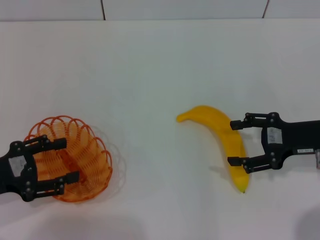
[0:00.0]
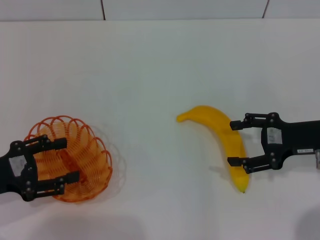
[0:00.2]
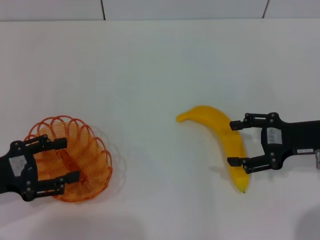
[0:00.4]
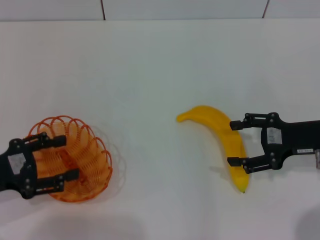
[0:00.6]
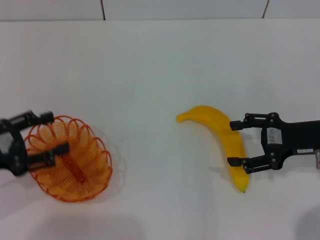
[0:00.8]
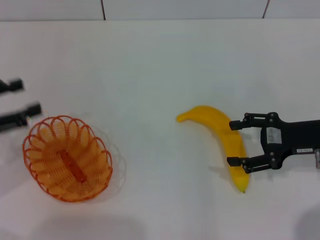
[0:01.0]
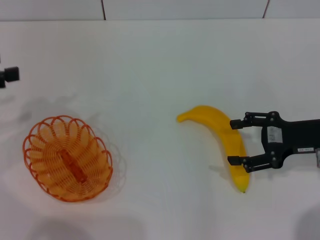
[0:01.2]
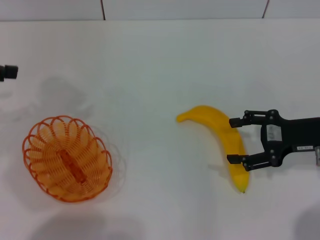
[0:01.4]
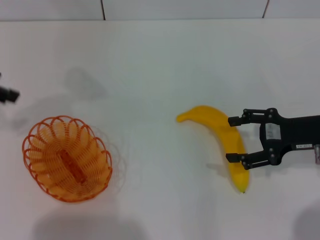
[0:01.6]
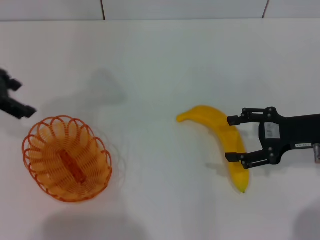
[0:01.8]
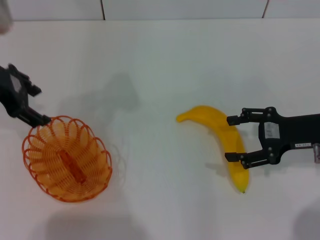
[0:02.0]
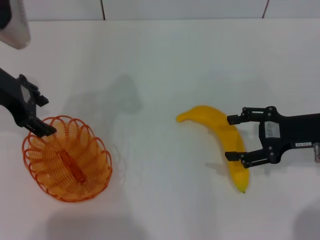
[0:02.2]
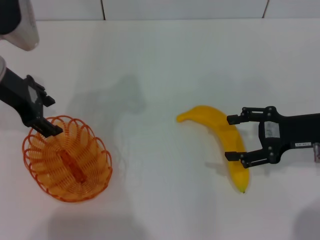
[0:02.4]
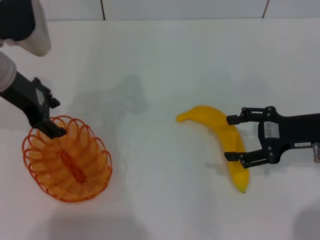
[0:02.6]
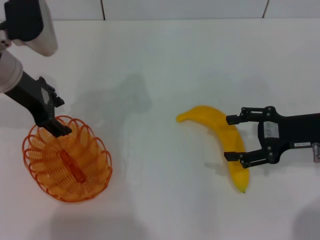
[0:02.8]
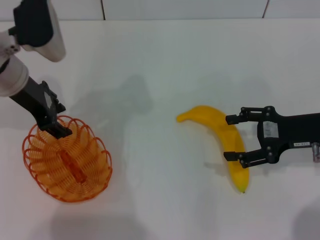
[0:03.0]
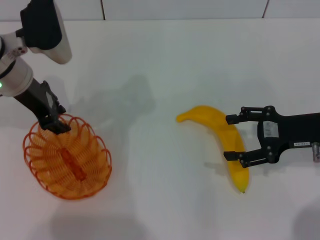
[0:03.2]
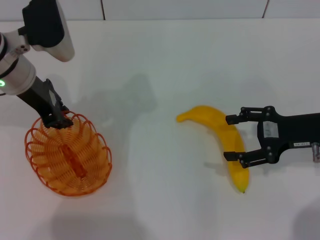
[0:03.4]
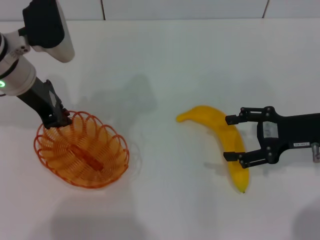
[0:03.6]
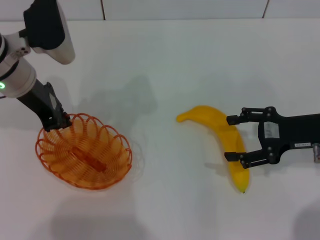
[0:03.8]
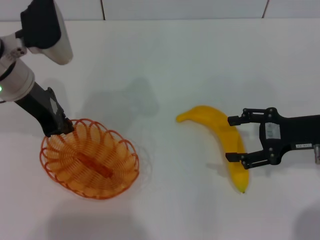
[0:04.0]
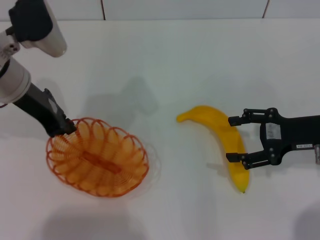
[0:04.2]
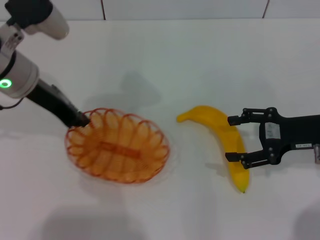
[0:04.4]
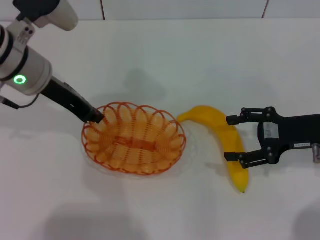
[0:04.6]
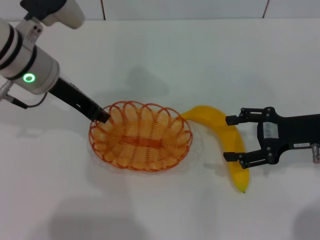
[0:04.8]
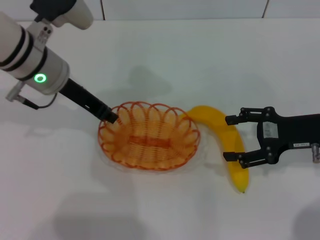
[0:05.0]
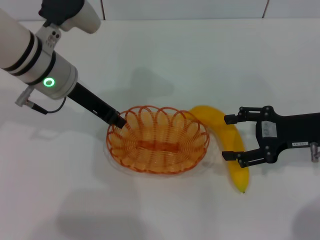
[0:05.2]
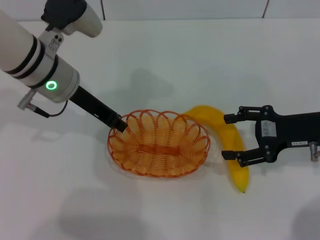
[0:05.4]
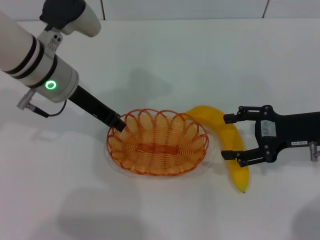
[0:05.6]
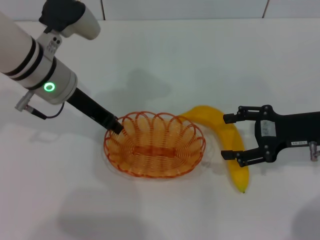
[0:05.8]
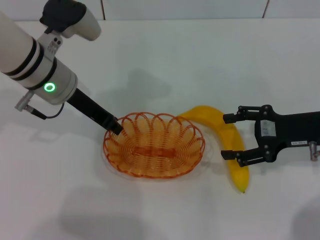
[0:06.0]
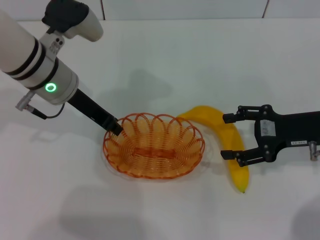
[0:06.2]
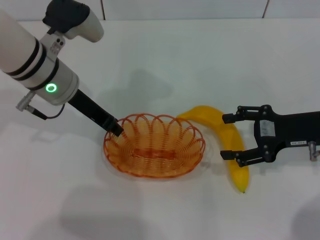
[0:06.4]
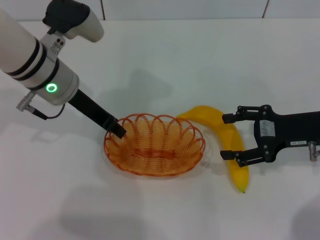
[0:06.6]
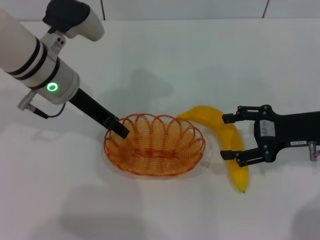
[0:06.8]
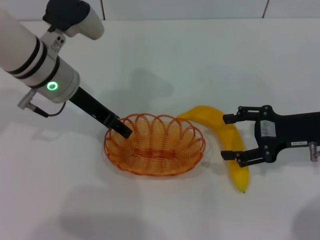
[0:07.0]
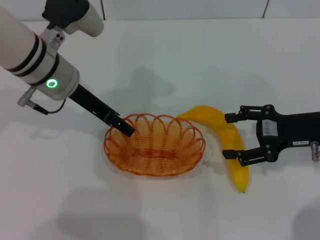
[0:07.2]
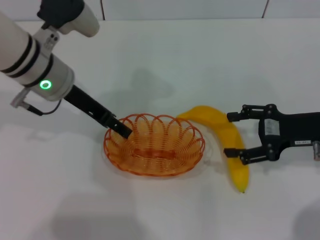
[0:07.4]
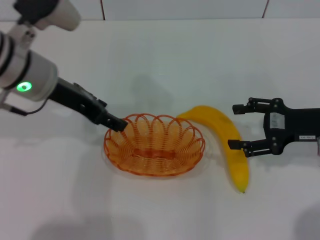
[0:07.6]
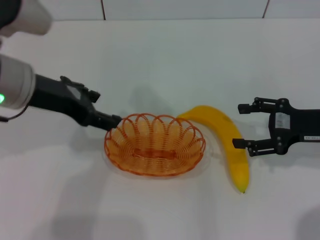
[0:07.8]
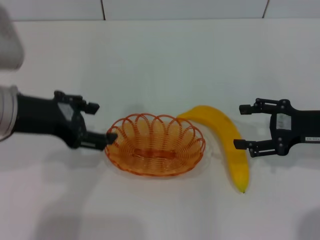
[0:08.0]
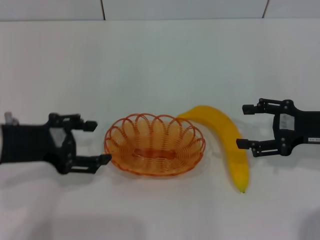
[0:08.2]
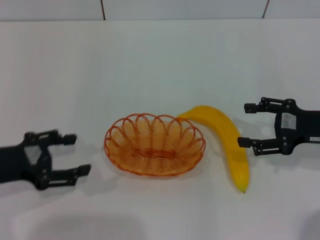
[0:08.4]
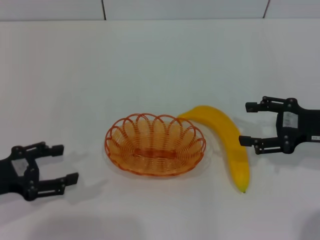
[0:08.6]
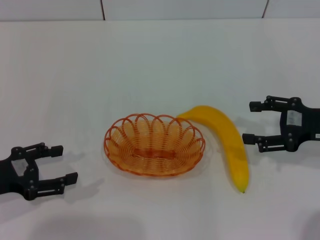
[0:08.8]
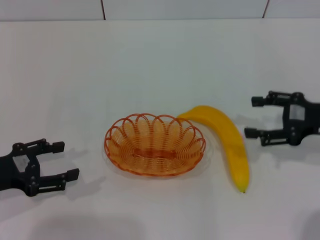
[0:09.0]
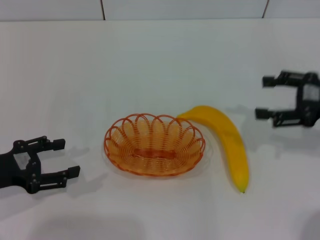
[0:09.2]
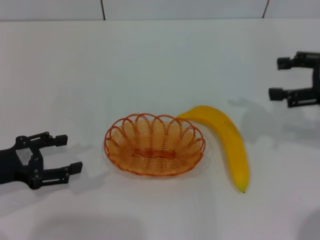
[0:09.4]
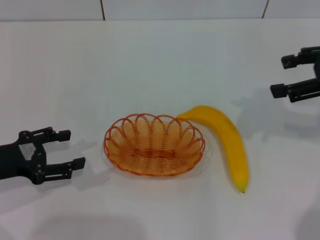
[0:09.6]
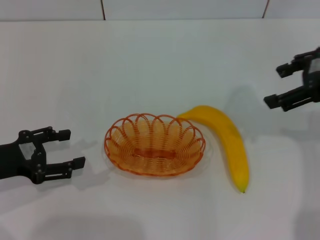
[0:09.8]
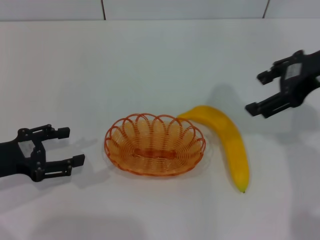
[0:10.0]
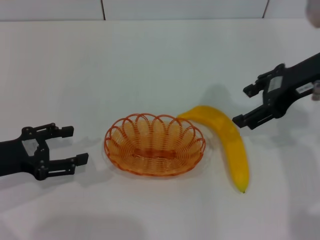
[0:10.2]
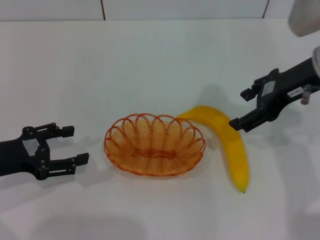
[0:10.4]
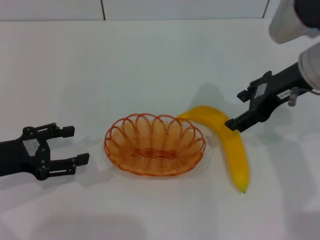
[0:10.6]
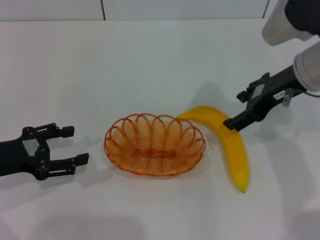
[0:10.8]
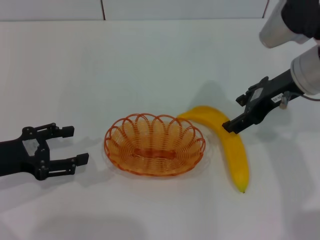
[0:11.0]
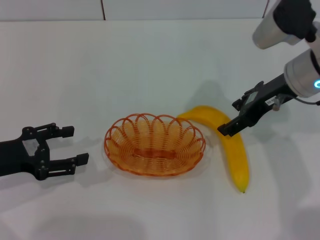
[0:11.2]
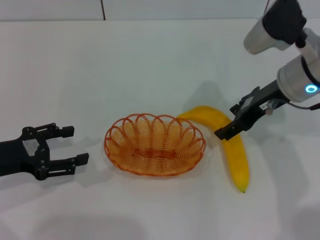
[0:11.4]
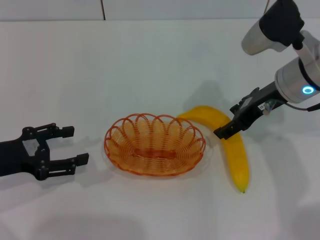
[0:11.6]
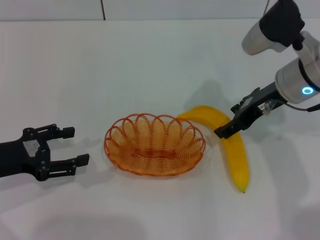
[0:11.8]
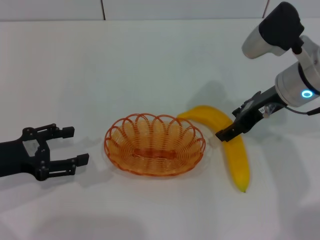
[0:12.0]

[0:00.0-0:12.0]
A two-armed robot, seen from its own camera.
Step, 0:00.0 to 0:04.2: Pick up the basket with the left gripper.
Step, 0:04.4 to 0:11.4: Place the basket in the center of view with the left gripper.
0:00.0 to 0:01.6: The left gripper heads upward and forward, covering approximately 20 cm.
0:01.6 to 0:03.0: The left gripper moves to the right and downward, roughly 15 cm.
0:03.0 to 0:04.4: The left gripper closes up.
0:06.0 to 0:07.6: The left gripper shifts by about 5 cm, and opens up.
0:07.6 to 0:09.0: The left gripper shifts roughly 20 cm to the left, backward and downward.
0:09.0 to 0:10.4: The right gripper is displaced upward and to the left by approximately 15 cm.
0:10.4 to 0:12.0: The right gripper moves downward, roughly 5 cm.

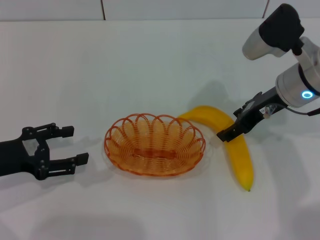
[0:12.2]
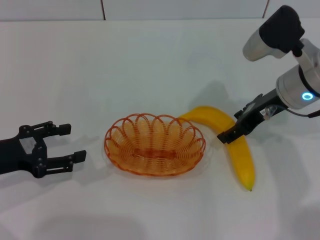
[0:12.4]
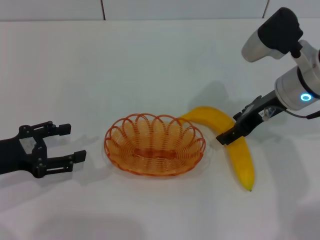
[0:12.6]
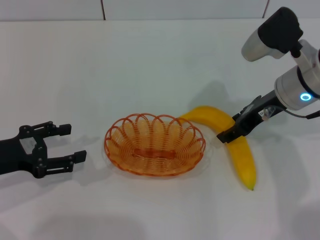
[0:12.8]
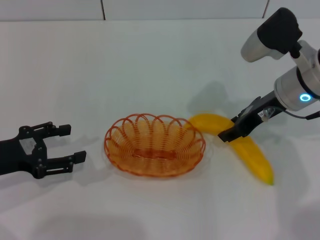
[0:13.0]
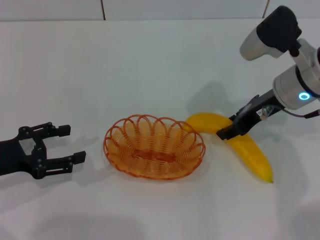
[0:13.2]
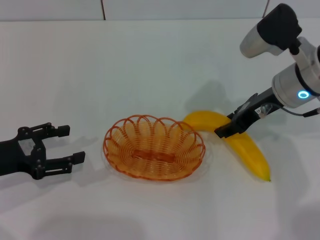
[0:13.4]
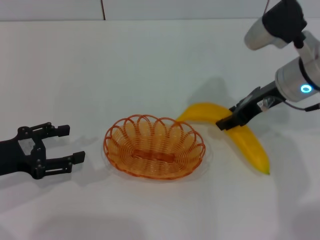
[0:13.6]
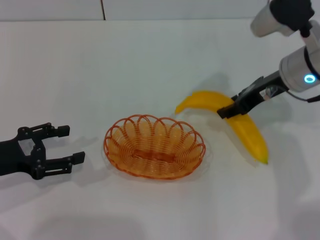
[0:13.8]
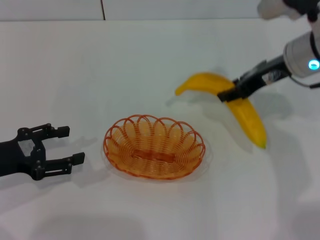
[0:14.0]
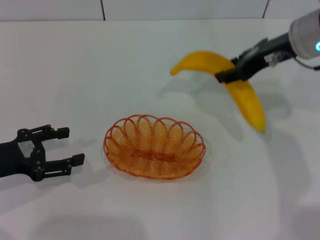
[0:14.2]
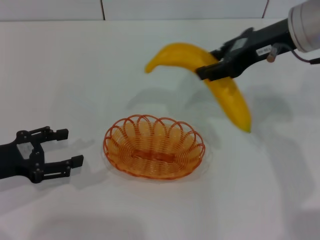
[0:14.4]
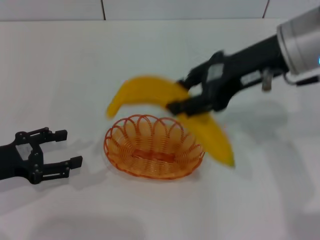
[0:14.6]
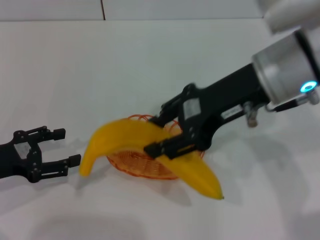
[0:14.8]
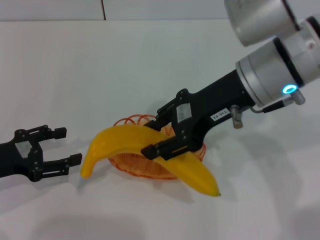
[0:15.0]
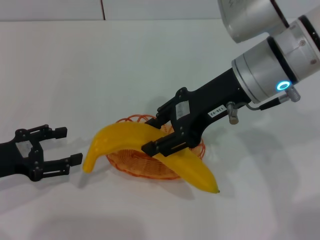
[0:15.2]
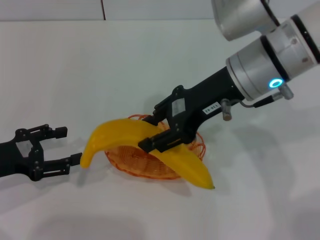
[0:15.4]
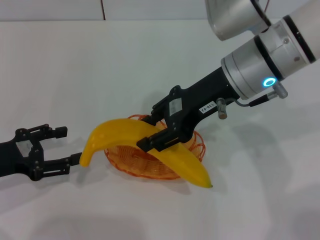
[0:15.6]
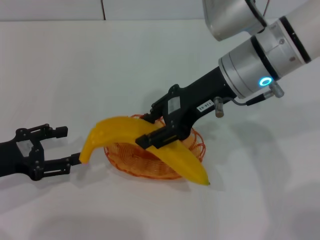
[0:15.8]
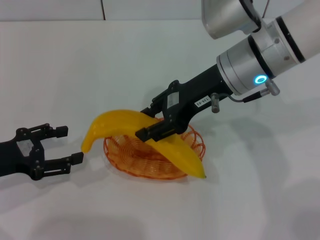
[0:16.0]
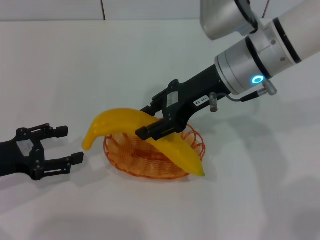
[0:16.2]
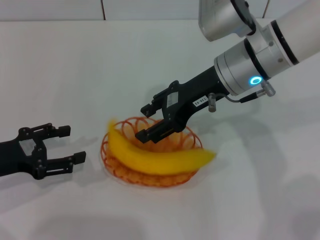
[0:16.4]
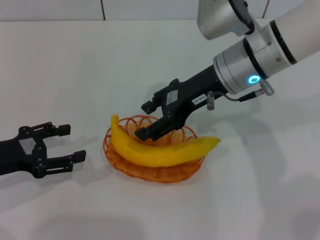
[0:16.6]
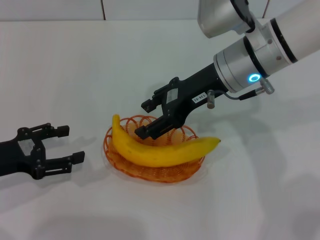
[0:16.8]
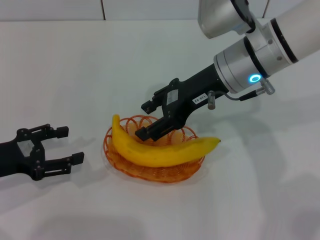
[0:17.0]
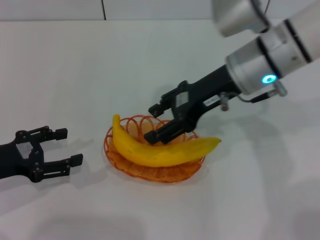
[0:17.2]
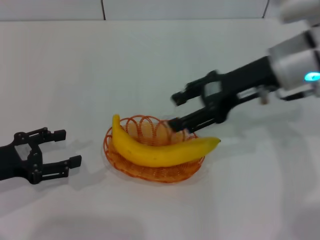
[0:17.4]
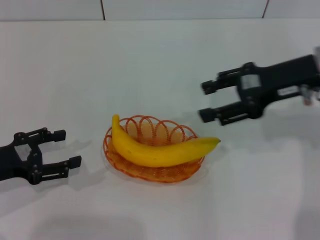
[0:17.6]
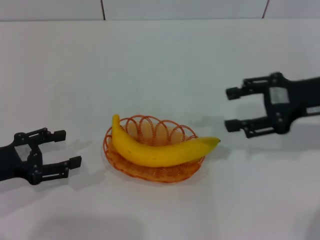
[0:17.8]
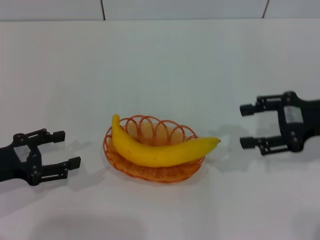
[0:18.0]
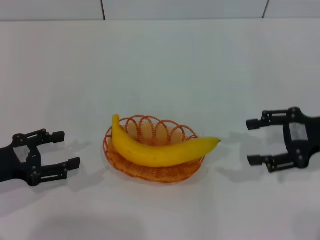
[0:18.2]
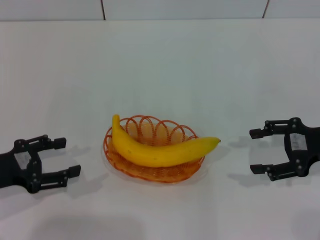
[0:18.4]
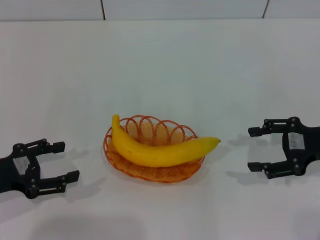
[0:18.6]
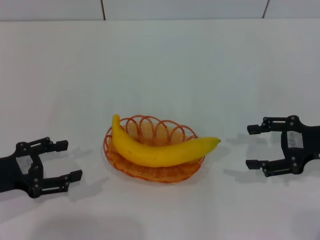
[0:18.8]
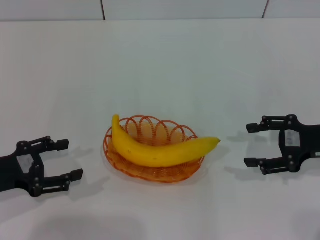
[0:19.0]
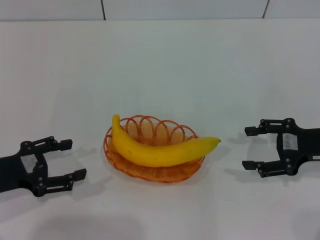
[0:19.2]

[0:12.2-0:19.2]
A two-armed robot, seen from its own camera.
Step, 0:12.2 to 0:14.0: Pick up the banana with the right gripper.
Step, 0:14.4 to 0:16.8: Place the banana into the basket with the right gripper.
0:12.2 to 0:13.6: The right gripper closes.
0:13.6 to 0:15.0: The right gripper goes approximately 10 cm to the left and upward.
0:15.0 to 0:16.4: The right gripper changes place by approximately 5 cm.
0:16.4 to 0:17.8: The right gripper is displaced to the right by some 15 cm, and opens.
0:17.8 to 0:19.2: The right gripper shifts roughly 10 cm downward.

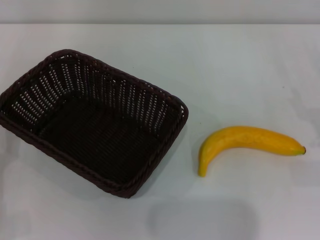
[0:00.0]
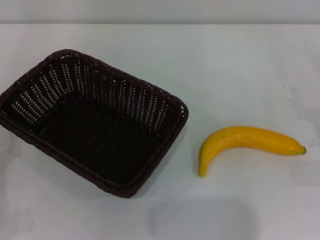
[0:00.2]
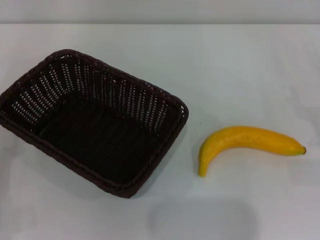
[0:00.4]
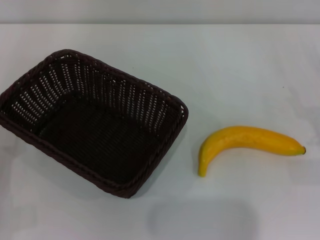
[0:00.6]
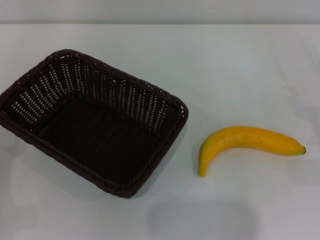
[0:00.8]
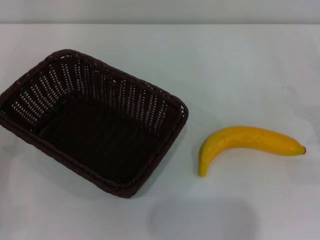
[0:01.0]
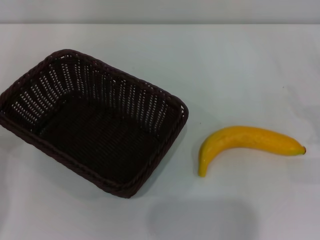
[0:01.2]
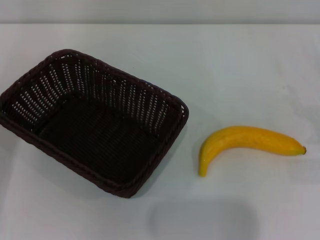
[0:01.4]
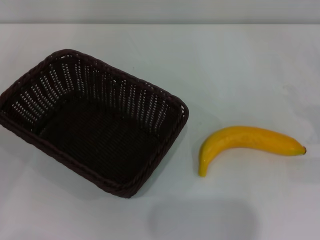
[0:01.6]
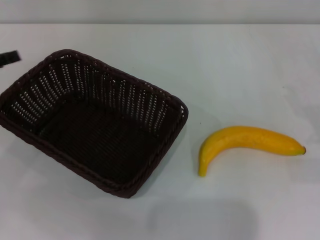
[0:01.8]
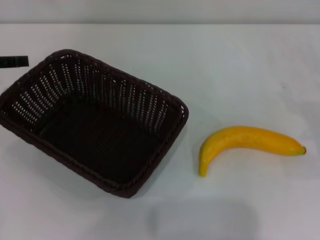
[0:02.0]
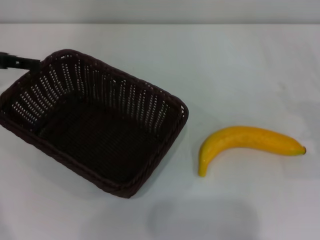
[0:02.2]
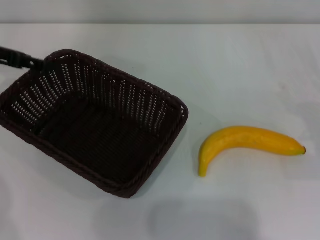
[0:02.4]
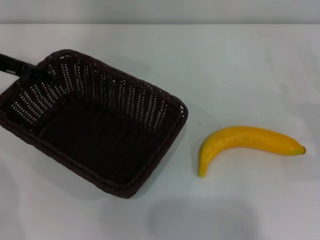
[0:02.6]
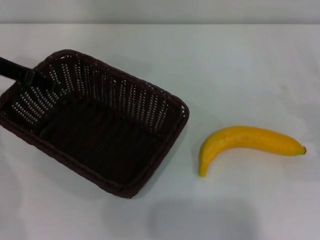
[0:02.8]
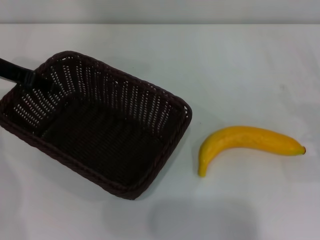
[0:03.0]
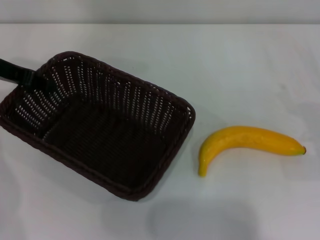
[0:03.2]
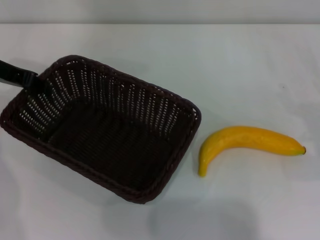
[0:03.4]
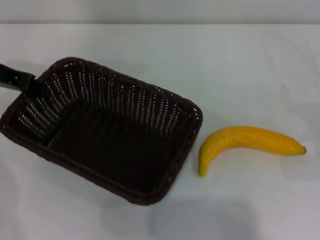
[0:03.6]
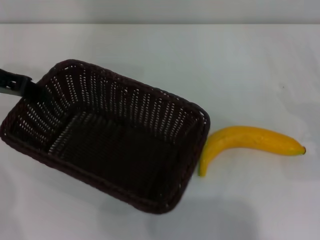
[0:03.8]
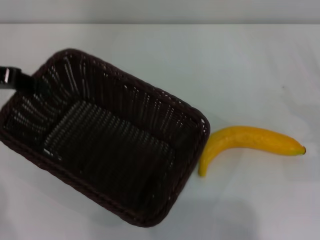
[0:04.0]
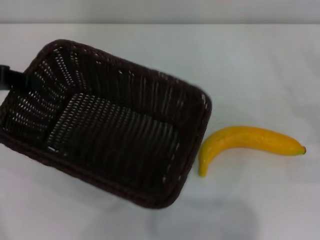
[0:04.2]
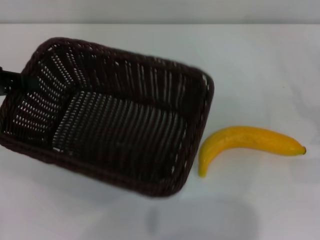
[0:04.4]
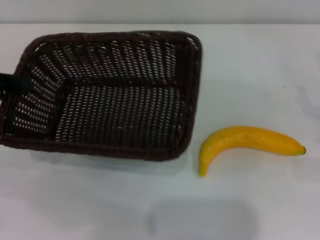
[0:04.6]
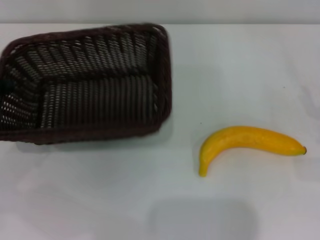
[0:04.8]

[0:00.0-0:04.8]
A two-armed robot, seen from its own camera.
Step, 0:00.0 to 0:03.6: Pick up the dark basket with the left gripper.
0:01.6 to 0:03.2: The left gripper goes roughly 20 cm forward, to the right and upward, and closes its fingers.
0:03.2 to 0:04.8: The left gripper travels to the left and backward by some 10 cm, and closes.
